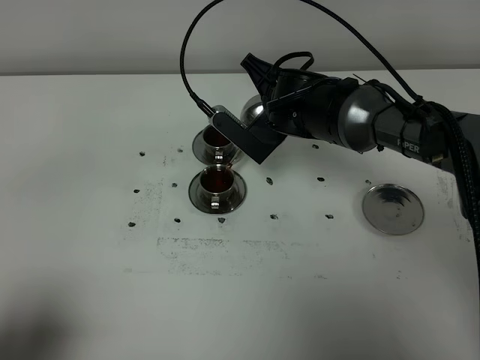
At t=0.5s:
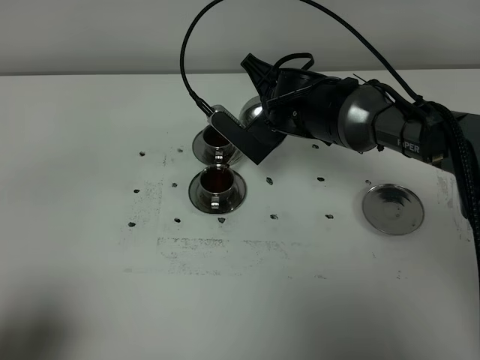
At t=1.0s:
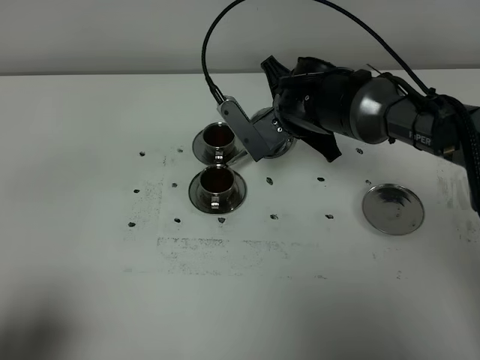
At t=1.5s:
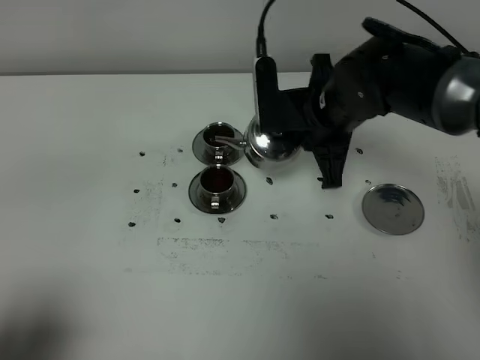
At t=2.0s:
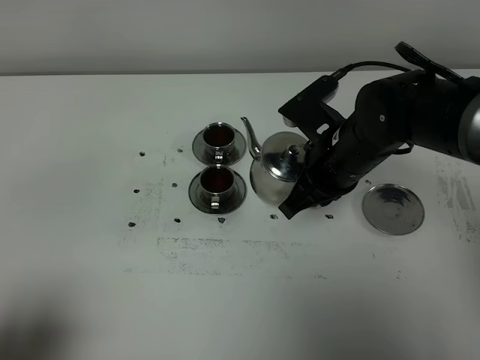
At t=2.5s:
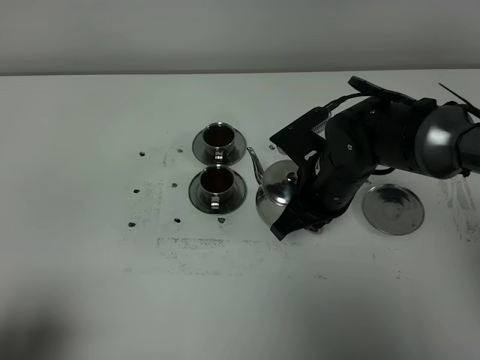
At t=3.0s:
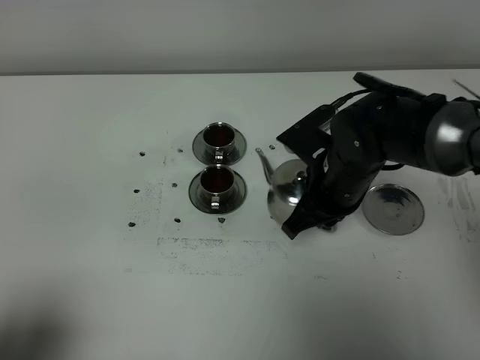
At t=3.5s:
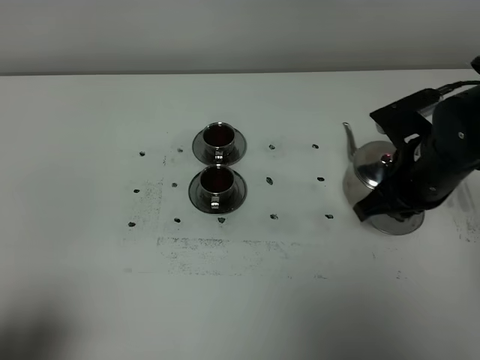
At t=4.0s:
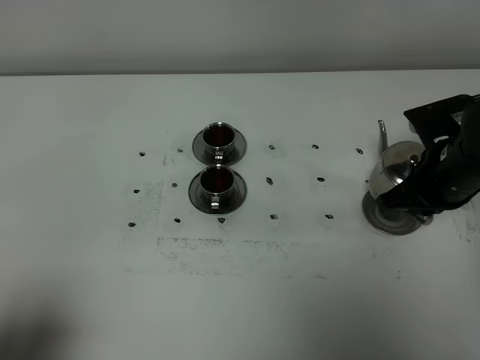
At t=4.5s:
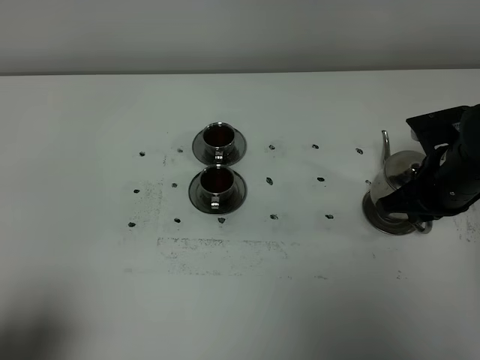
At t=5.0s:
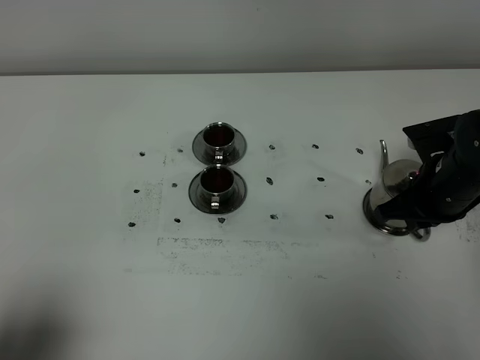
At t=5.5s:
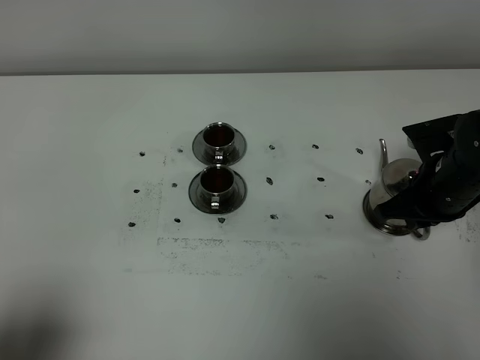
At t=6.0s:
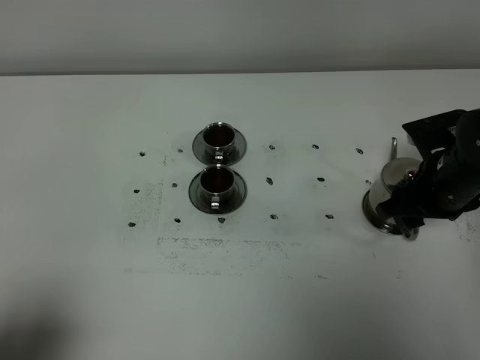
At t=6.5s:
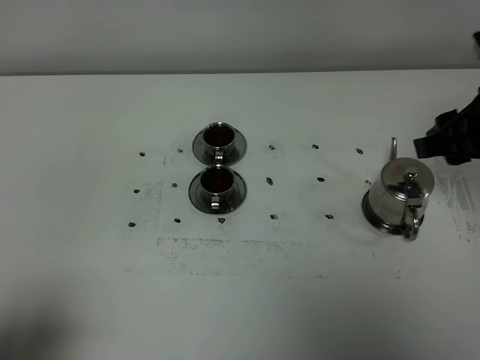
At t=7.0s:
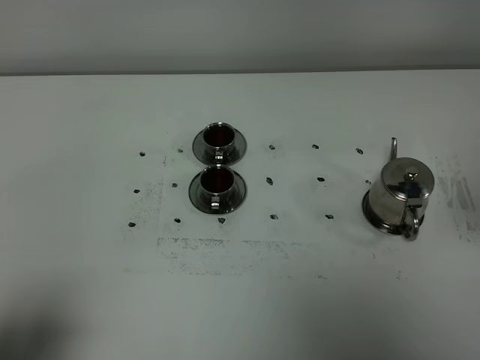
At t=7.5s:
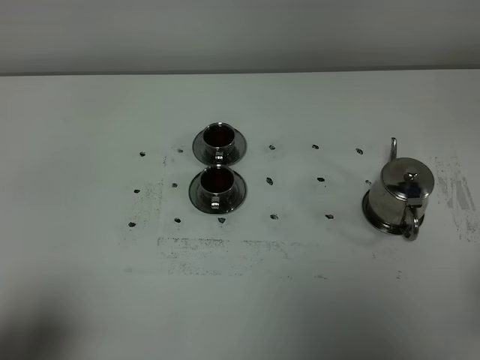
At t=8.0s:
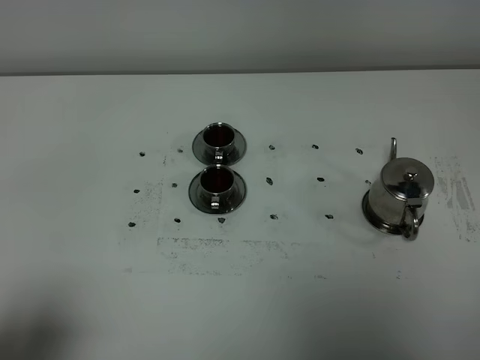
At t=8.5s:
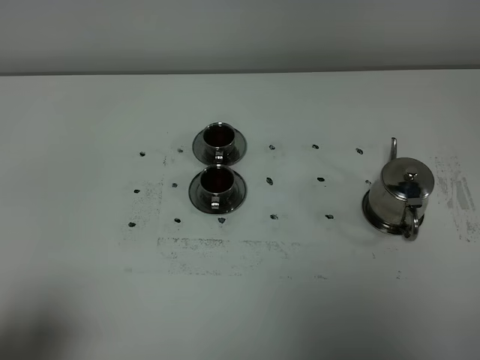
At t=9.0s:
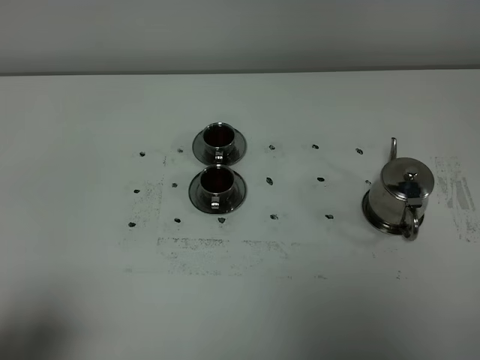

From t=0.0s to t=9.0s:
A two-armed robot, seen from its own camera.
Task of the whole recording: grasp the stainless steel teapot and pour the tea into the two stainless steel teacups one by one, put the stainless steel teapot back in its original place.
From t=0.0s to t=2.0s: The right gripper moves backward and to the right, some 10 cm.
From t=2.0s to t=4.5s: The right gripper moves to the right, roughly 15 cm.
From t=4.5s to t=7.0s: The right gripper goes approximately 25 cm upward and backward, and opens its fingers.

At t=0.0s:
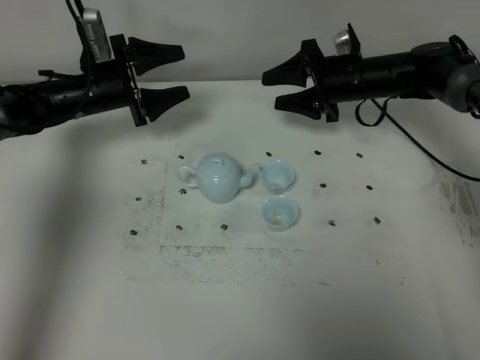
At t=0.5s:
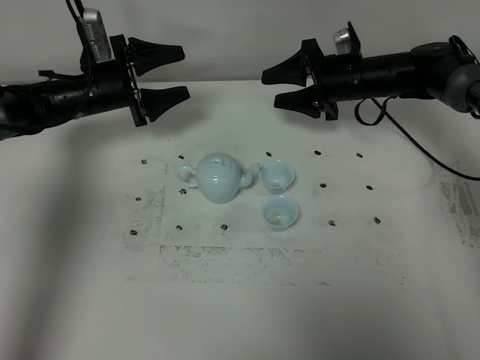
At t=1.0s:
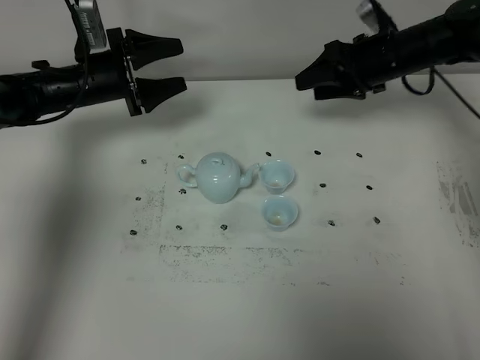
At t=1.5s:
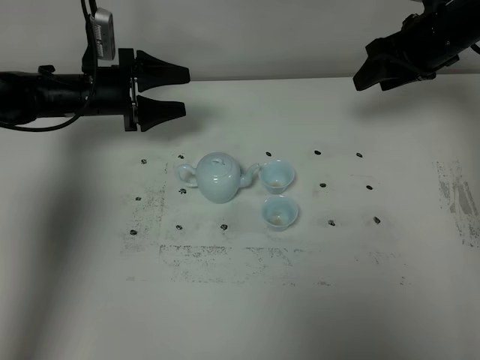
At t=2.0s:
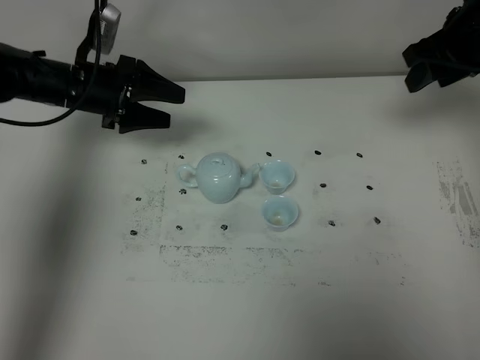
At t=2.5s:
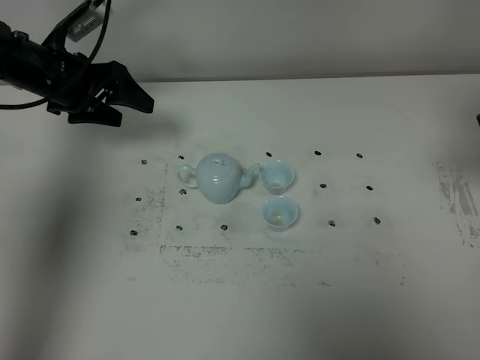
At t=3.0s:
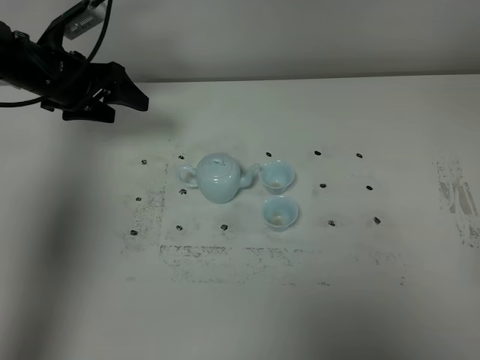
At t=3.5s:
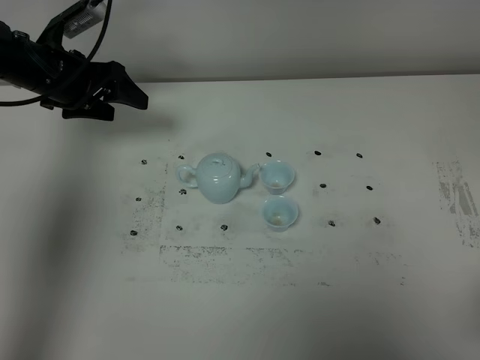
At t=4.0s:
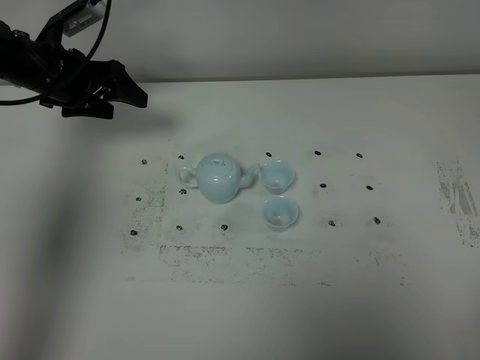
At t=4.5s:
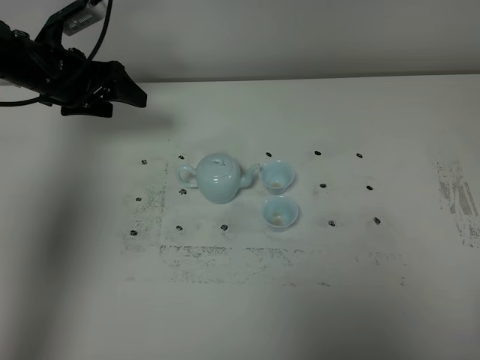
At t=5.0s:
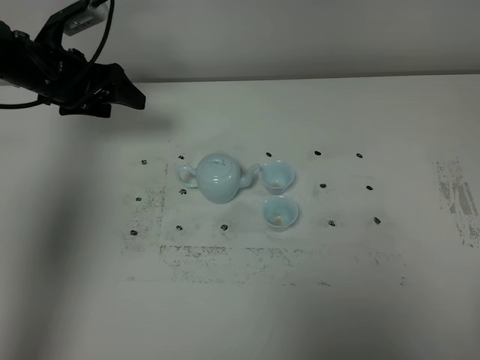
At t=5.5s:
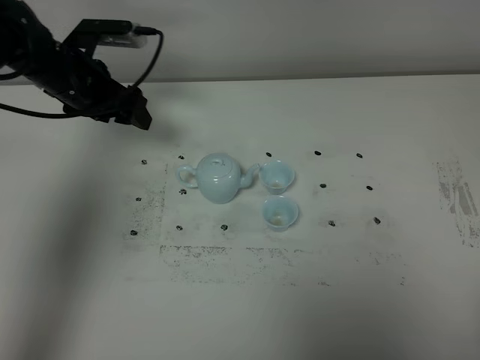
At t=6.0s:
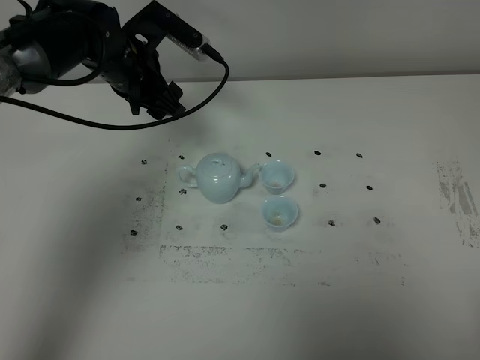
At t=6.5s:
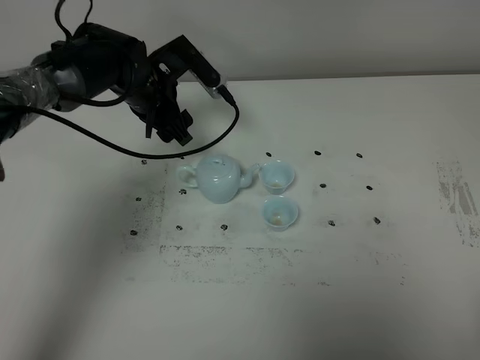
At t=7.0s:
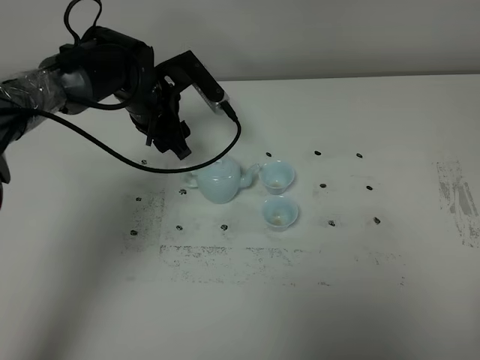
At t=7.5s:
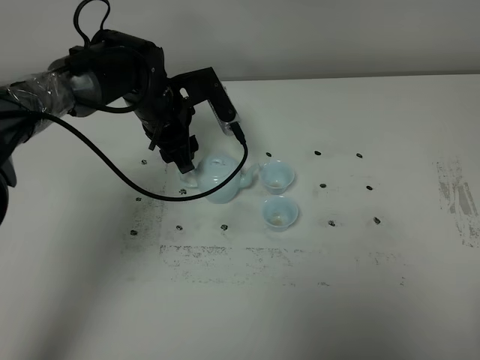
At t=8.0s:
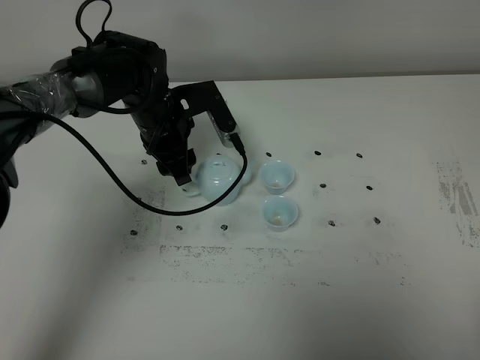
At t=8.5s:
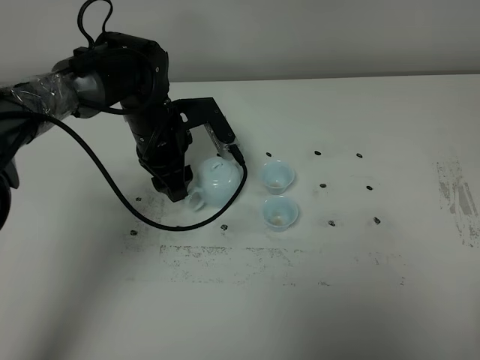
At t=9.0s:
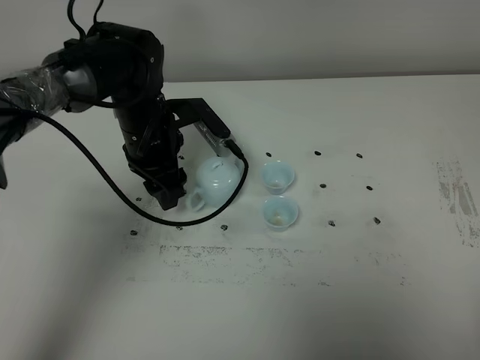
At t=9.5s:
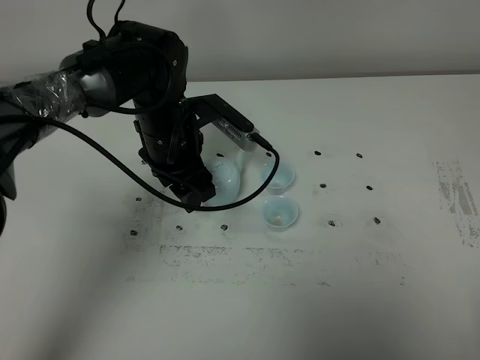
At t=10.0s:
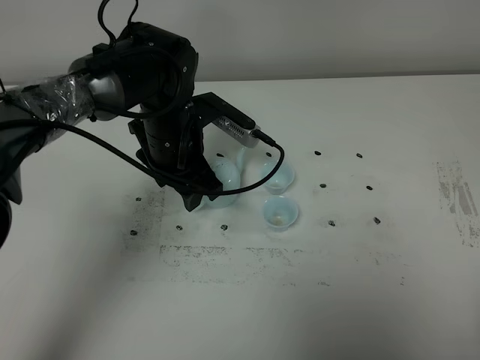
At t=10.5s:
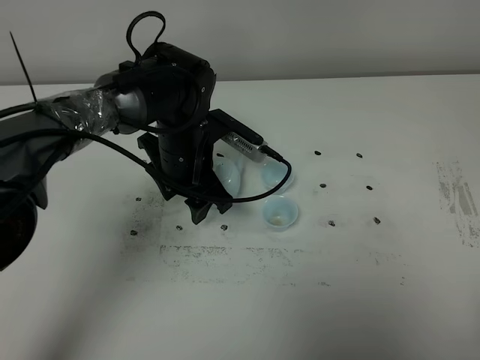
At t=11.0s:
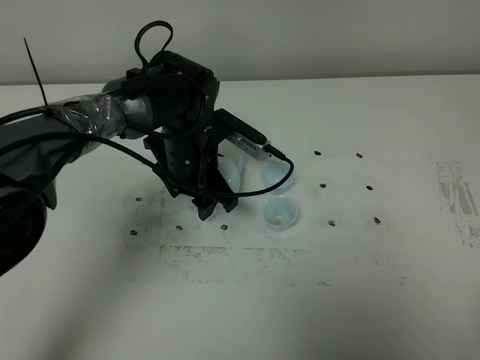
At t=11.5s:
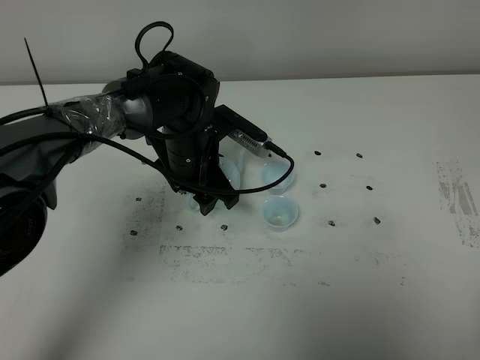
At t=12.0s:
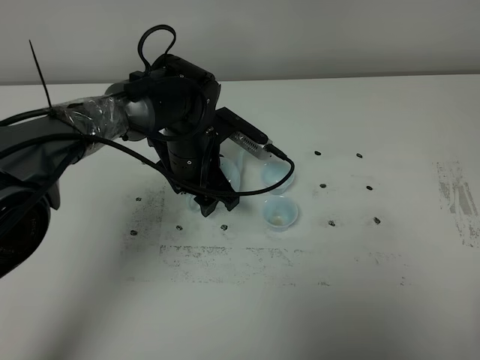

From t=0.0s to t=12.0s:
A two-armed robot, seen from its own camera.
Task of the whole recording: grasp the blue porcelain teapot and pour the tea into the two blue porcelain teacups one by one, put the blue porcelain teapot back in its original place.
From t=0.0s to t=2.0s: The left gripper changes place by approximately 5 cm. The right gripper shifts roughly 20 cm upward, to the right and backward.
From t=2.0s to t=4.0s: The right gripper travels backward by some 40 cm.
From t=4.0s to t=6.0s: The left gripper goes approximately 10 cm to the right.
From t=6.0s to t=8.0s: The left gripper goes about 5 cm downward.
From t=8.0s to t=10.0s: The left gripper moves some 5 cm.
From t=10.0s to t=12.0s: The grippers make only small movements.

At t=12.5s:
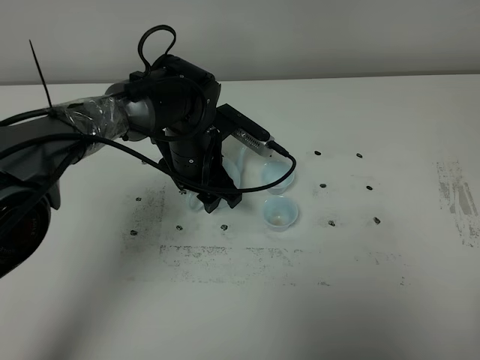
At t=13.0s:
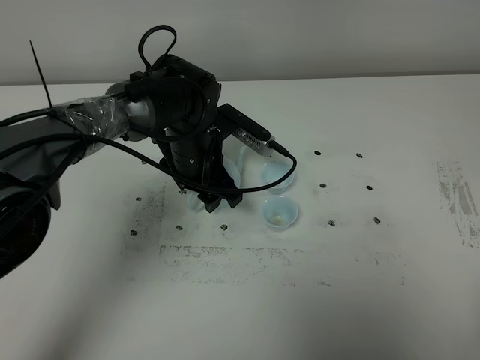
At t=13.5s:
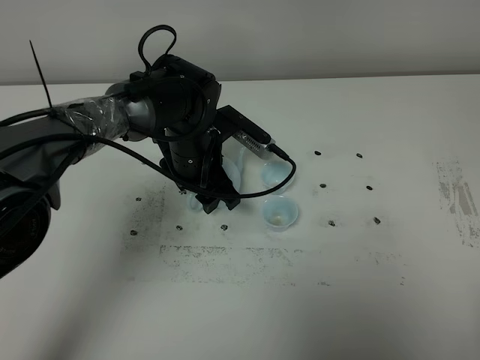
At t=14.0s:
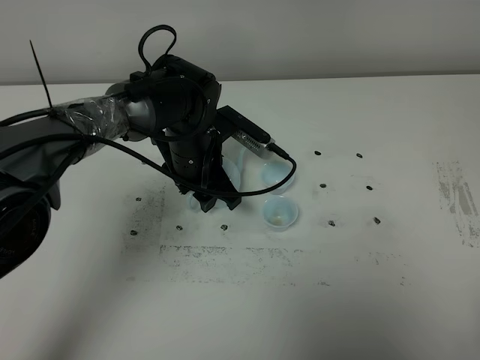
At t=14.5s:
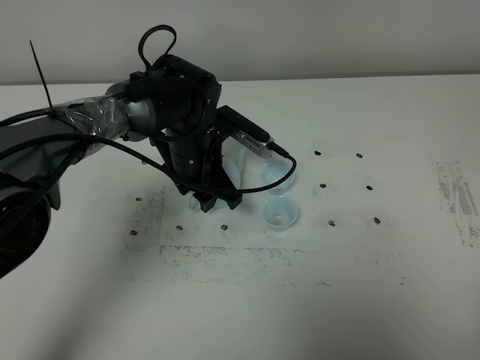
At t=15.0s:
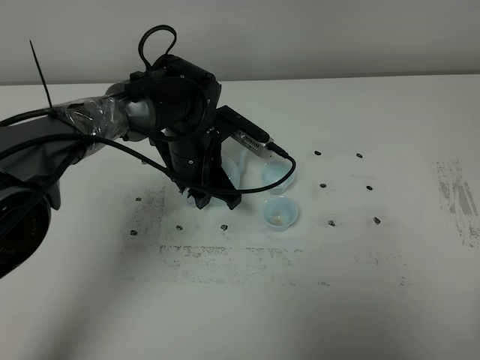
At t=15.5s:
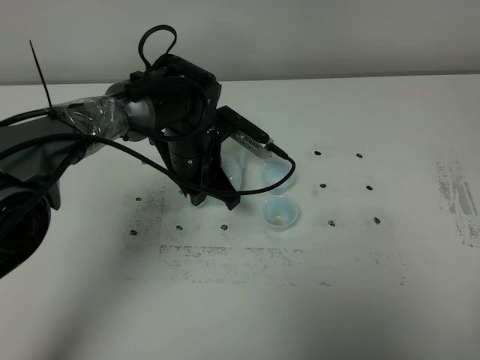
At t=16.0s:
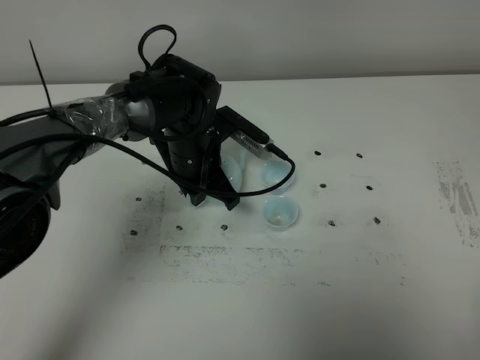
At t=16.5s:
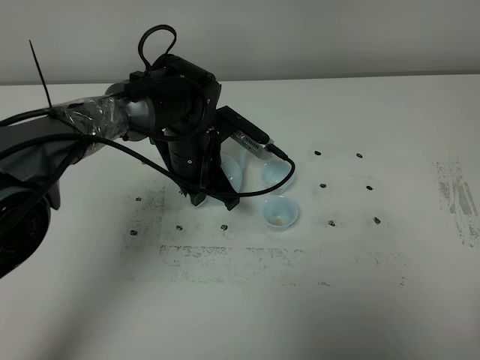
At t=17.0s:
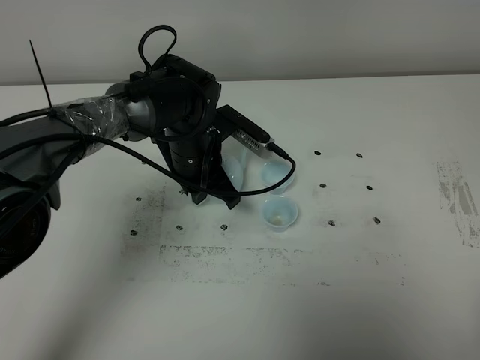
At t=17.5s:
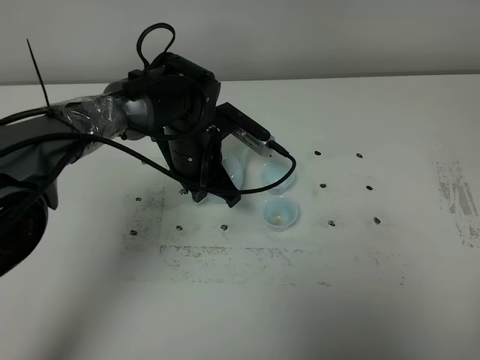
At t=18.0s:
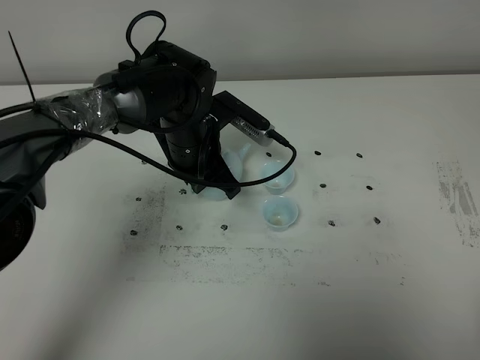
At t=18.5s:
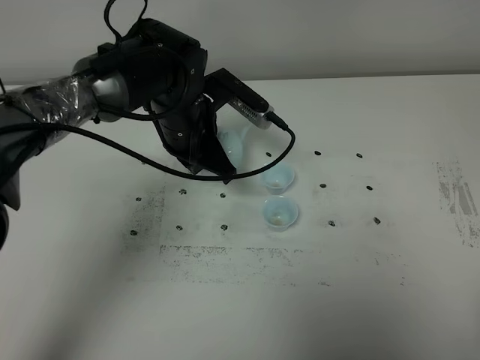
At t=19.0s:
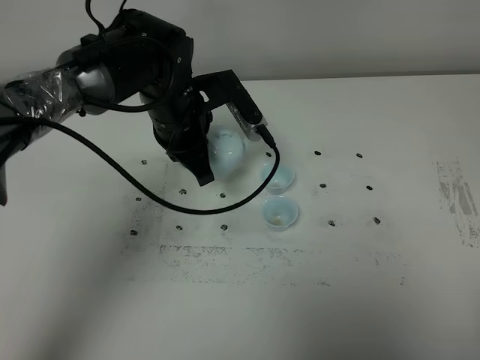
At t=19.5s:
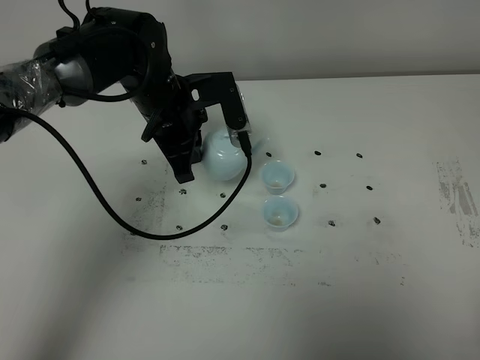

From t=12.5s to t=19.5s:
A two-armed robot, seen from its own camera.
Task of the whole recording: grasp the blue porcelain teapot and pour the tea into the two blue porcelain teacups one by one, put the blue porcelain teapot back in its original place.
Step, from t=12.5s to t=18.5s: Pick up the teapot with the left gripper.
From t=12.5s to t=14.5s: Neither gripper changes place.
From t=14.5s to t=16.0s: The left gripper closes.
From t=16.0s to t=17.5s: The two grippers keep their place.
From t=17.5s to t=19.5s: The left gripper moves upward, some 5 cm.
